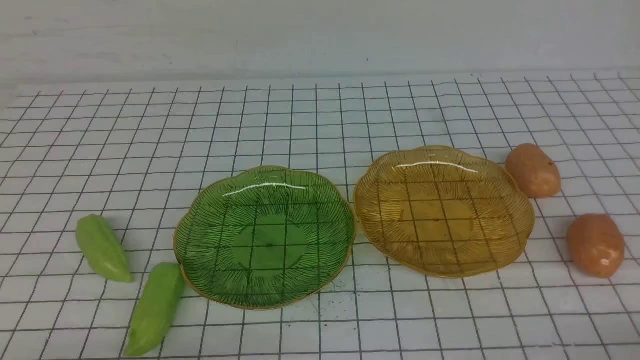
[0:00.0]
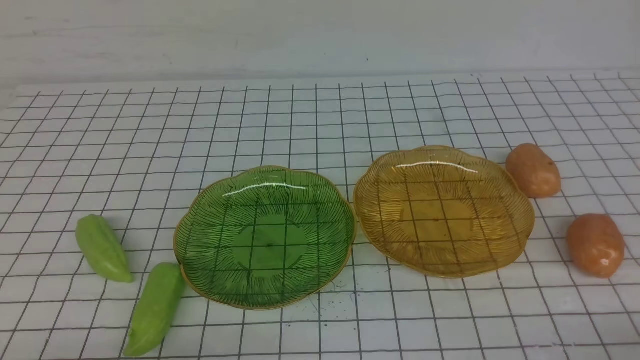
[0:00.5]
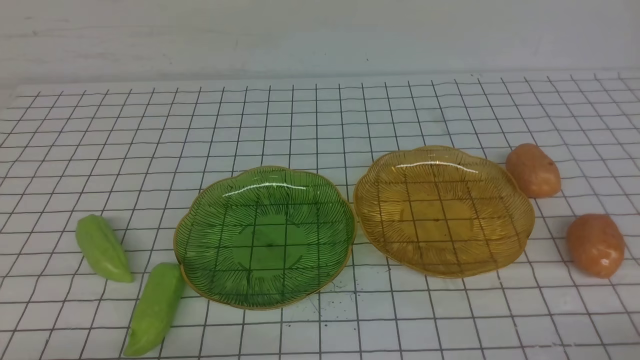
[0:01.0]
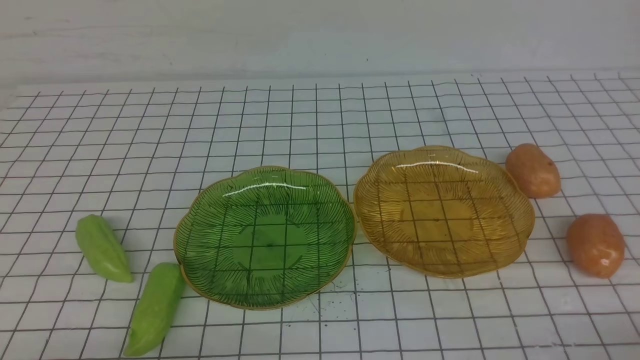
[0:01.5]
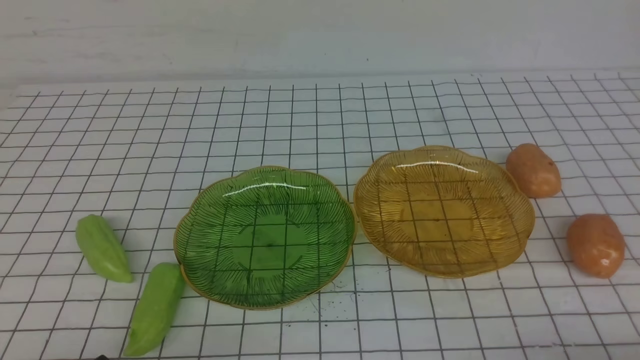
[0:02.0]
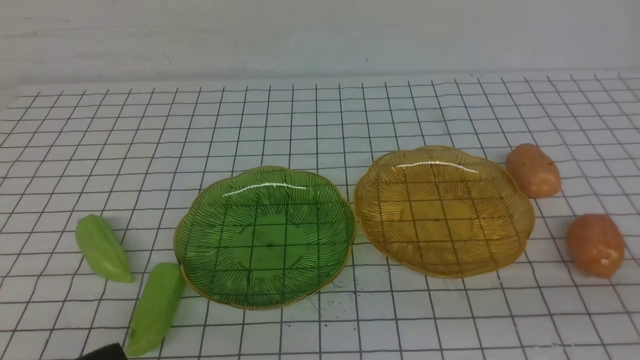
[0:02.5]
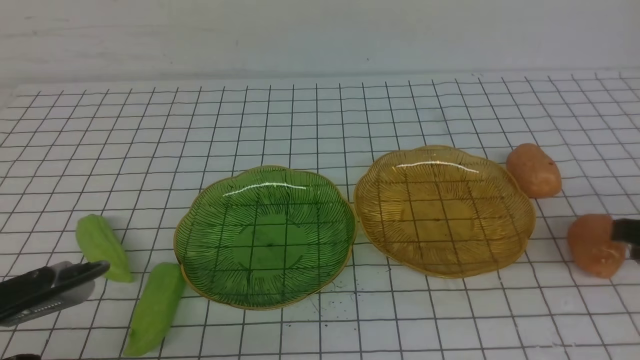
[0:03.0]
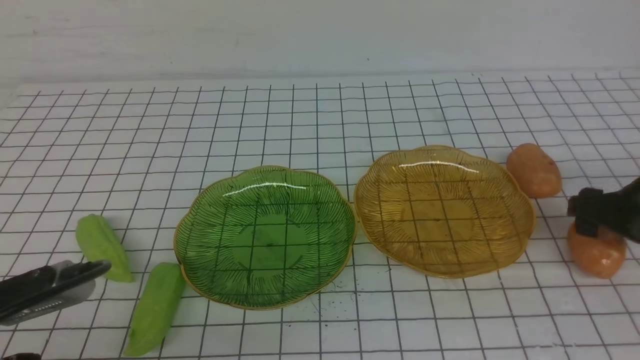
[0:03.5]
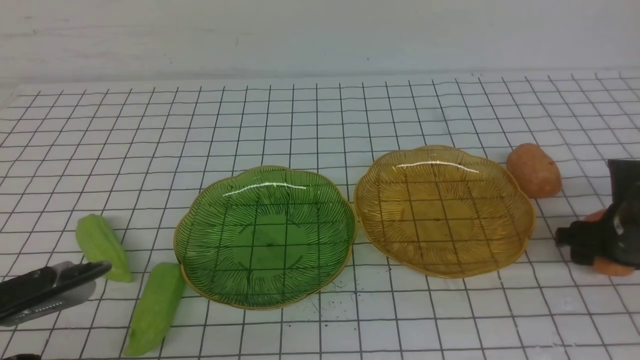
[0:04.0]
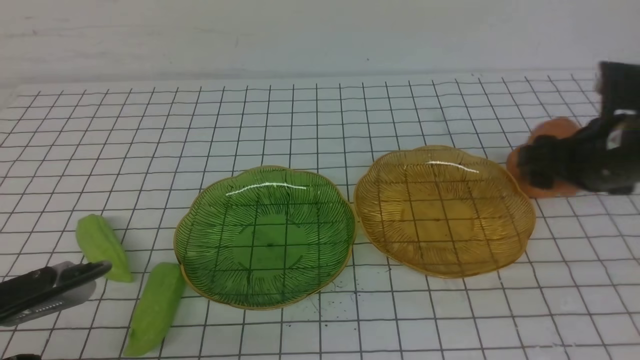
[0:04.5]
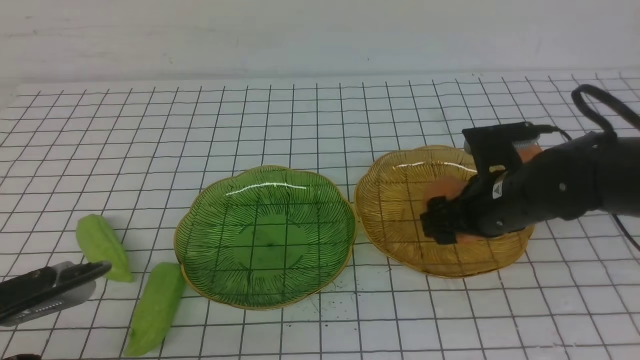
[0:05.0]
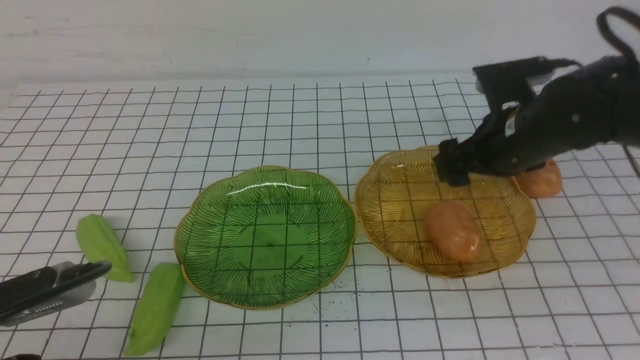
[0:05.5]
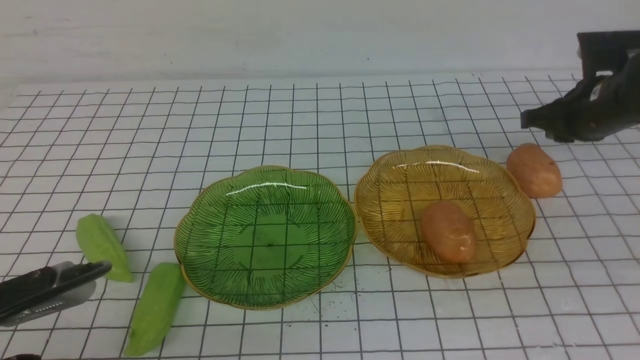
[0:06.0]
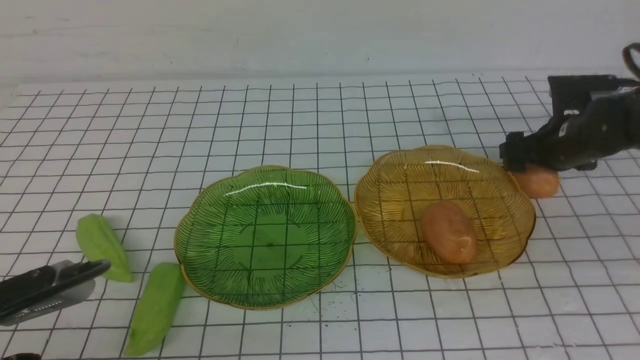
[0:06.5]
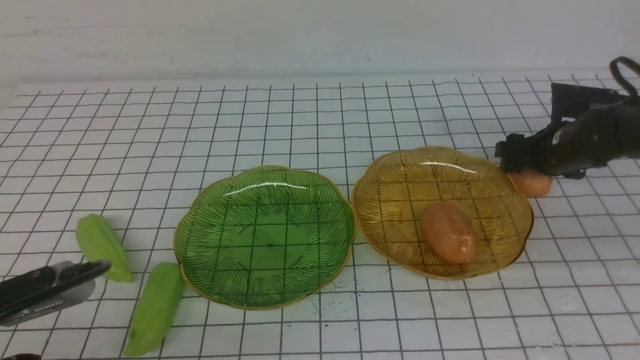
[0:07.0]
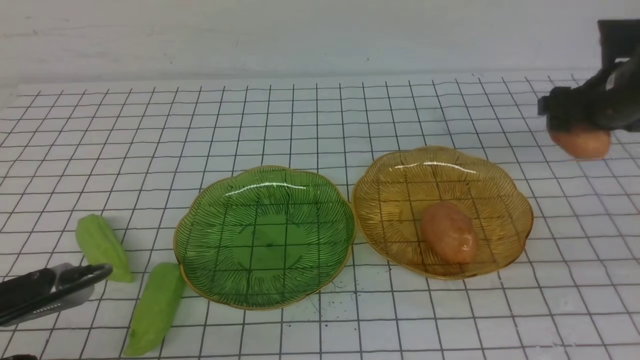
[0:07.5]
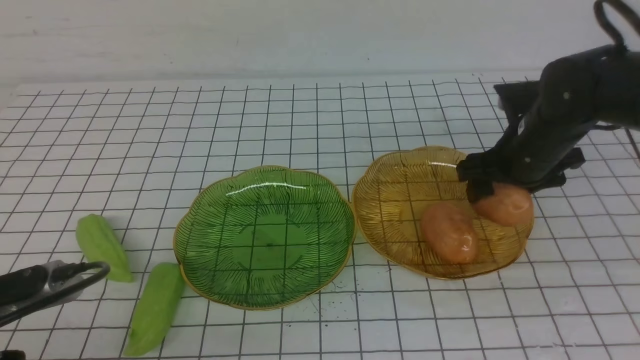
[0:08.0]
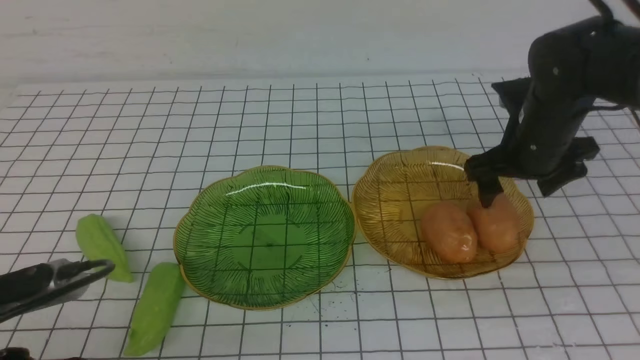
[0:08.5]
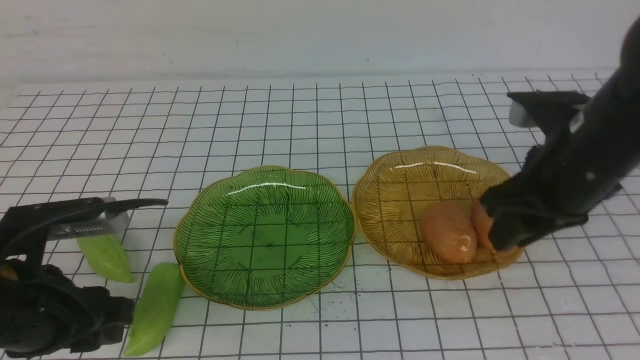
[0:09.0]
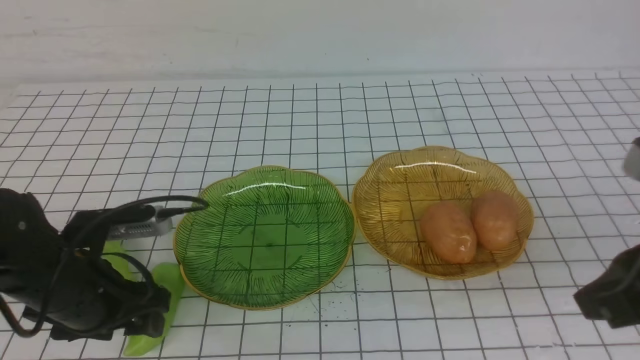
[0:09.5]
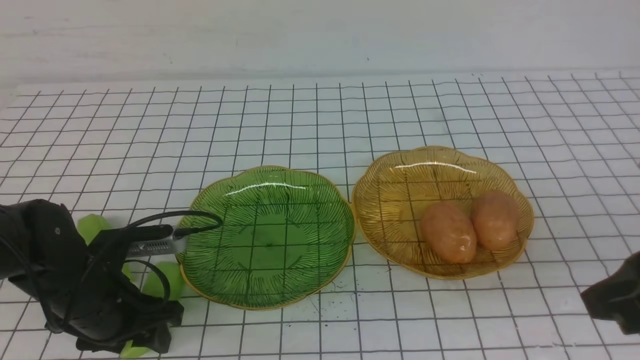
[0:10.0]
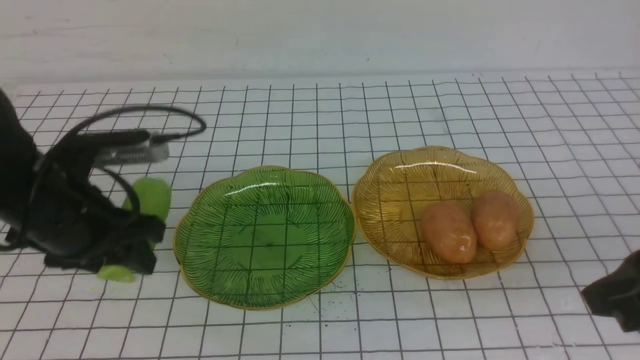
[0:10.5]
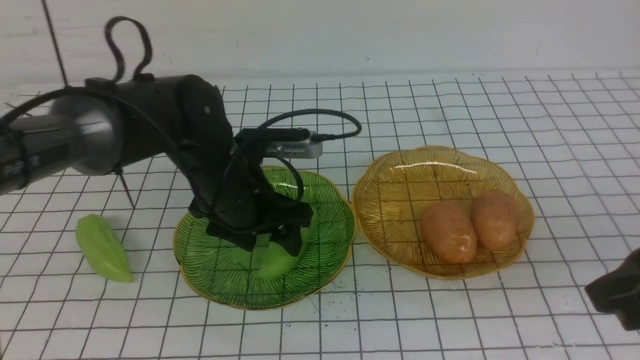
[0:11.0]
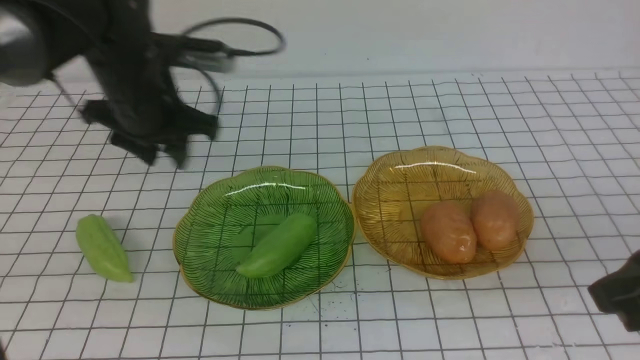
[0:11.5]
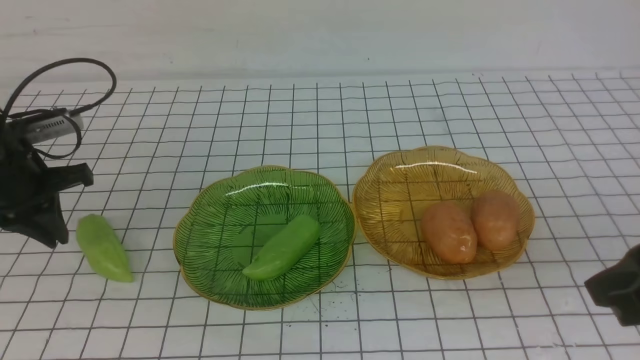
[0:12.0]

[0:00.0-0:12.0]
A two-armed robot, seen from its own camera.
Step, 0:00.0 to 0:08.0: Grab a potato with your right arm and put it on the right plate.
Step, 0:09.0 to 0:11.0: use the left arm to grab a chayote and put it into the left plate.
0:02.0 to 0:04.0: The right gripper heads forward, covering roughly 25 cm, and opens up. The left gripper heads upward and forward, covering about 5 cm.
0:04.0 to 0:06.0: The right gripper goes about 10 cm forward and upward, reaches about 15 cm to the left, then returns, and closes.
0:06.0 to 0:08.0: The right gripper travels to the left by roughly 5 cm, goes downward and returns, some 10 cm each way, and opens.
0:08.0 to 0:10.0: The right gripper heads backward and upward, covering about 25 cm, and closes. The left gripper moves forward and downward, approximately 15 cm, and opens its fingers.
0:10.0 to 0:12.0: The left gripper is displaced forward, to the left and upward by roughly 15 cm, and closes its fingers.

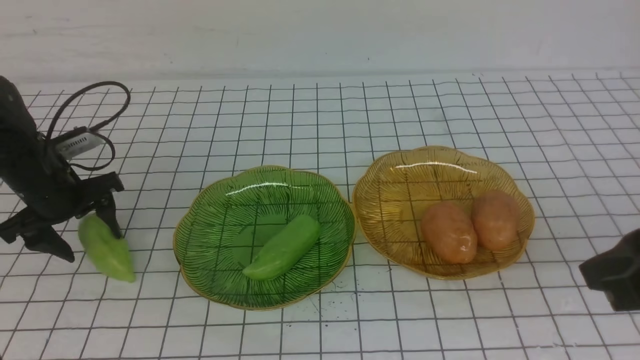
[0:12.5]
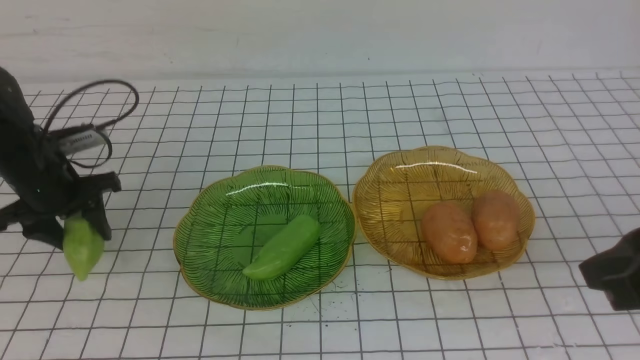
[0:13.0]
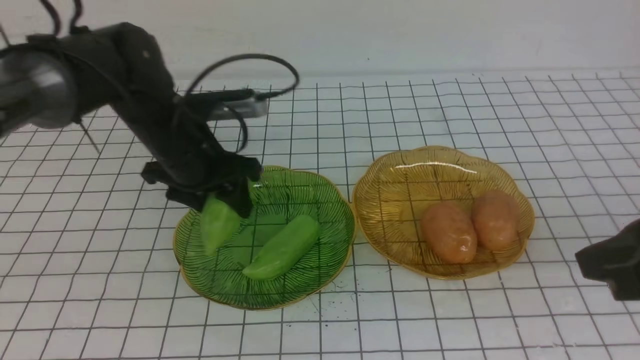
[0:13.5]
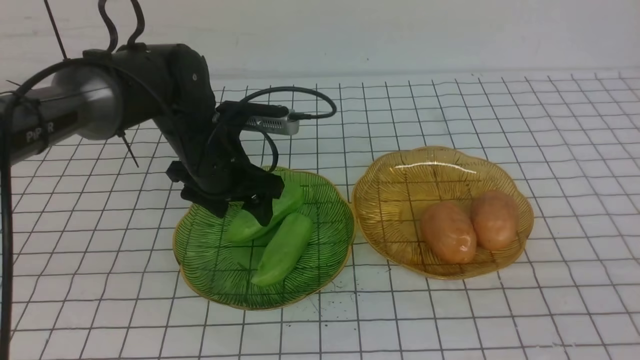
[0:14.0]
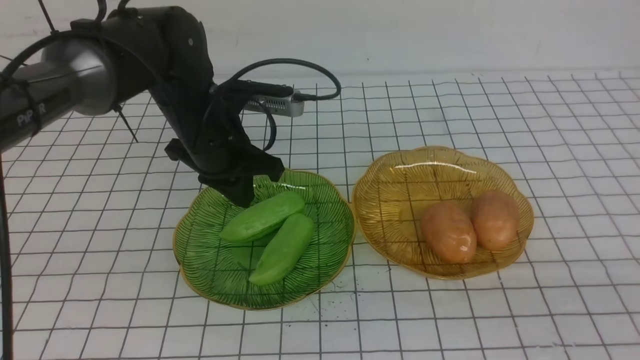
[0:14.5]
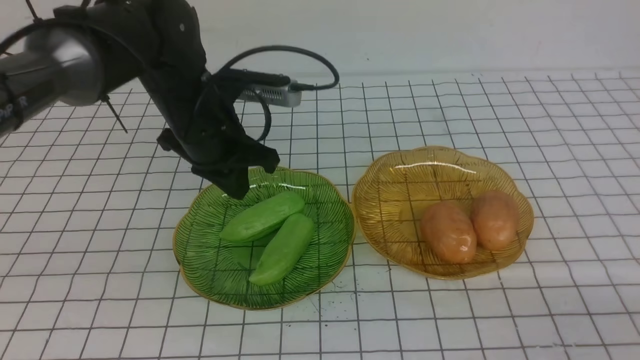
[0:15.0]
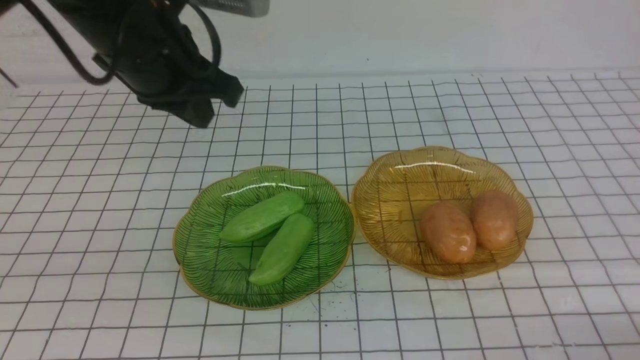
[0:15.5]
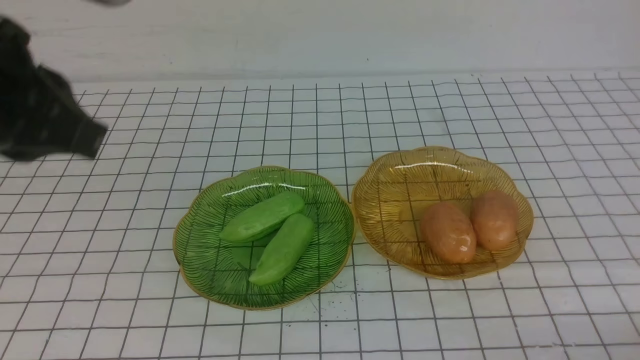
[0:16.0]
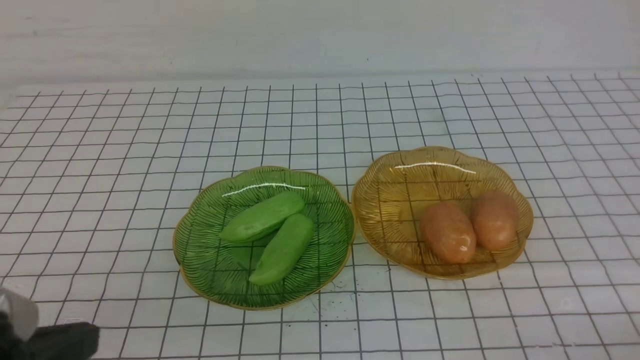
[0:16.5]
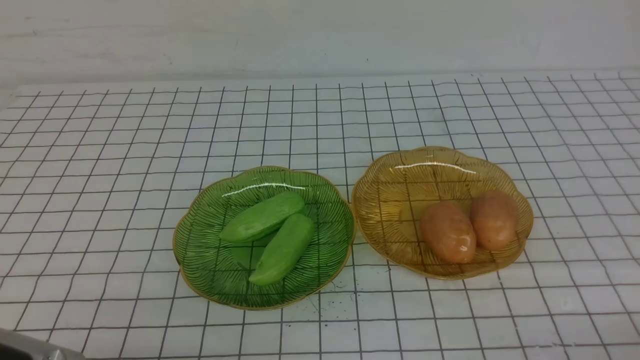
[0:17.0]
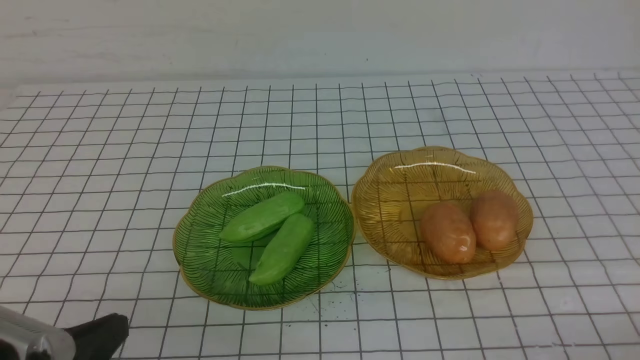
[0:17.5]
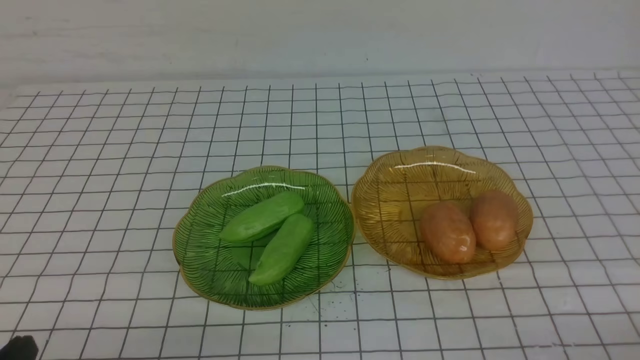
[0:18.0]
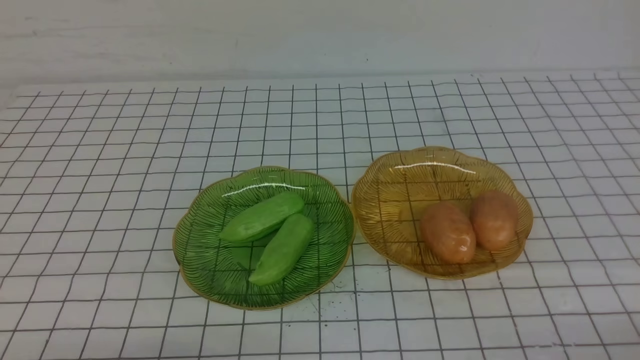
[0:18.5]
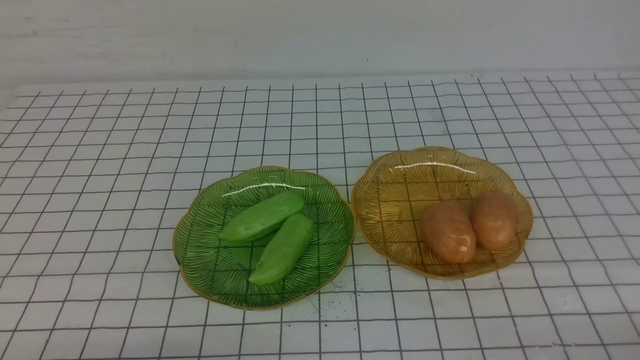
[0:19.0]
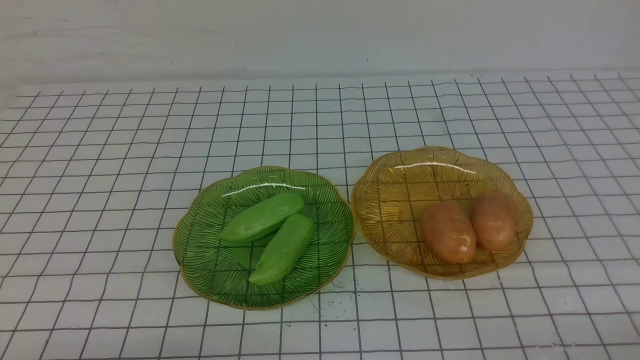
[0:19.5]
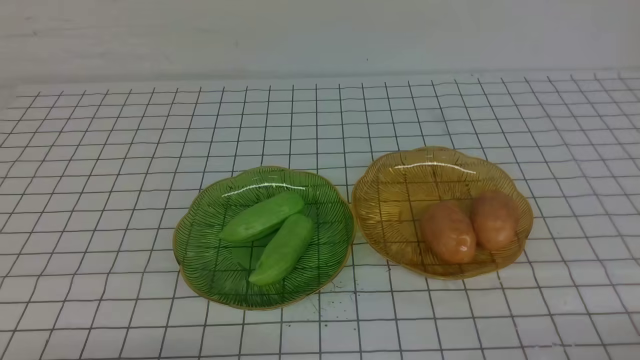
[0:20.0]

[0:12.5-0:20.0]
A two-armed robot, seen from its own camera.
Step, 0:12.5 to 0:14.0: use the left arm to grab a chayote and put it into the left plate.
0:12.5 to 0:14.5: The left gripper moves to the right, about 20 cm, and closes up. Meanwhile the right gripper travels backward by some 10 cm.
0:14.5 to 0:16.5: The right gripper shifts roughly 10 cm downward; the left gripper heads backward, covering some 30 cm.
0:16.5 to 0:18.0: The left gripper shifts approximately 10 cm downward.
